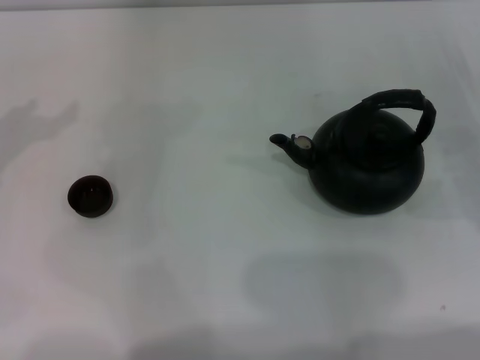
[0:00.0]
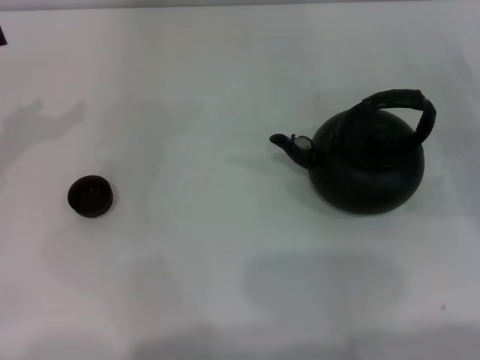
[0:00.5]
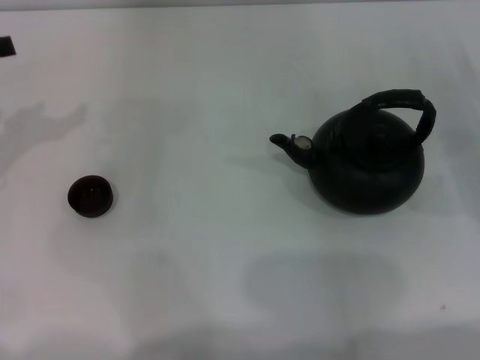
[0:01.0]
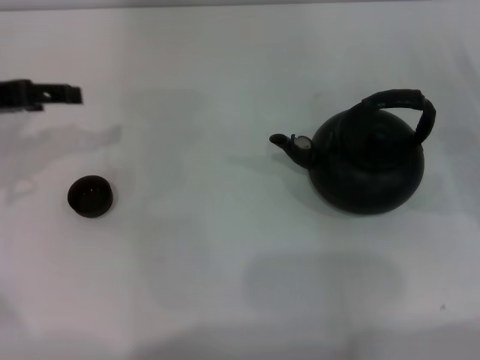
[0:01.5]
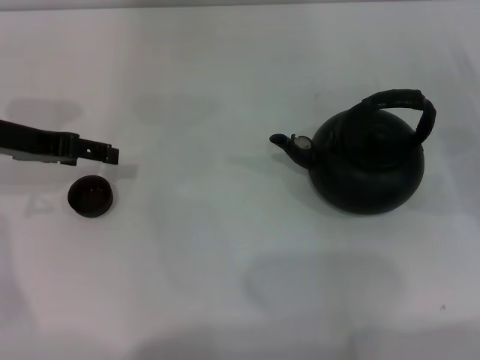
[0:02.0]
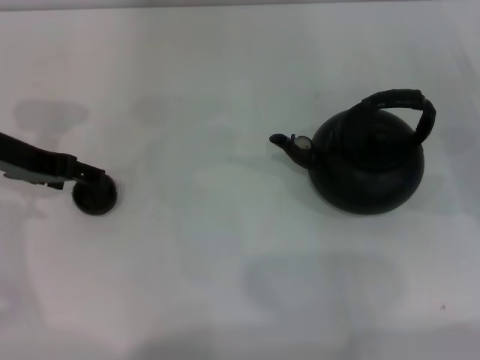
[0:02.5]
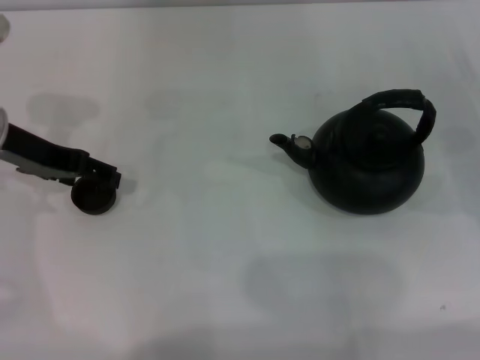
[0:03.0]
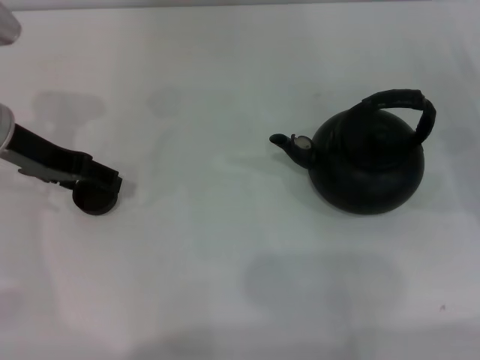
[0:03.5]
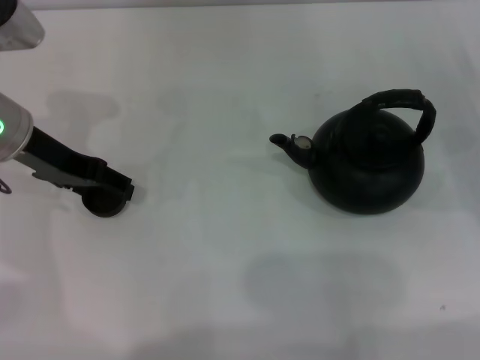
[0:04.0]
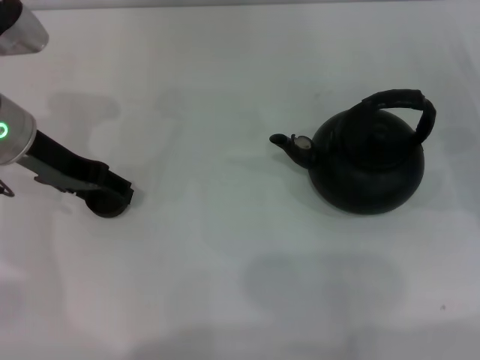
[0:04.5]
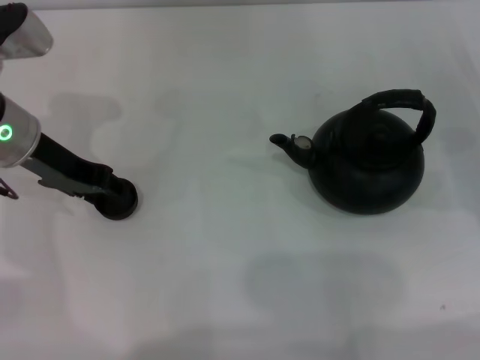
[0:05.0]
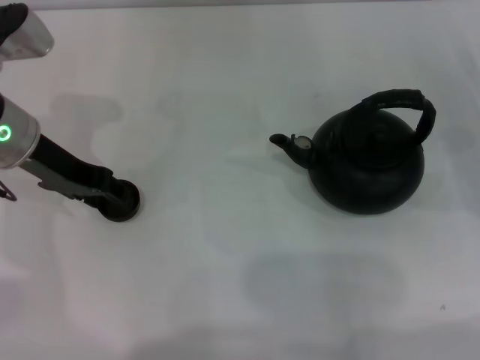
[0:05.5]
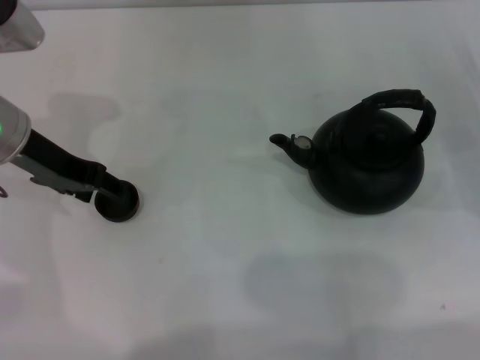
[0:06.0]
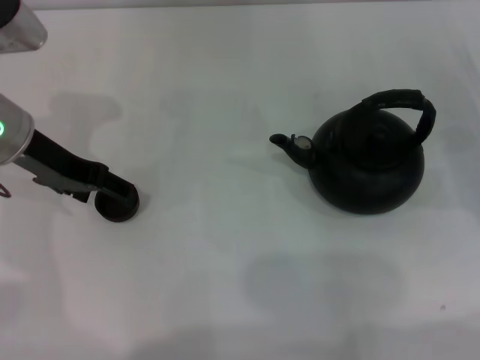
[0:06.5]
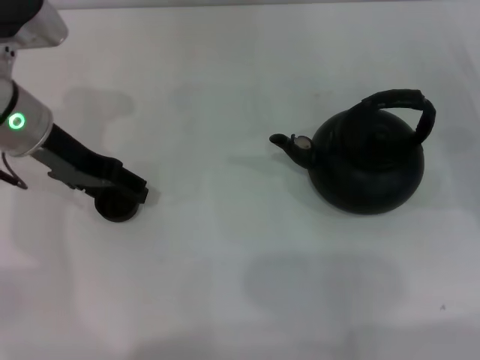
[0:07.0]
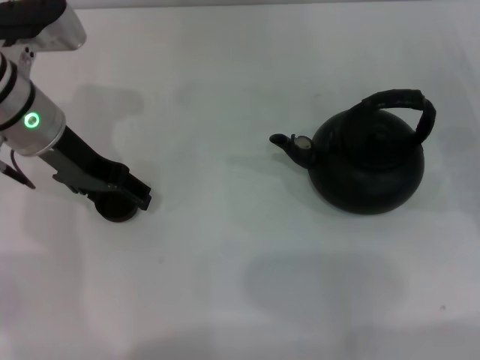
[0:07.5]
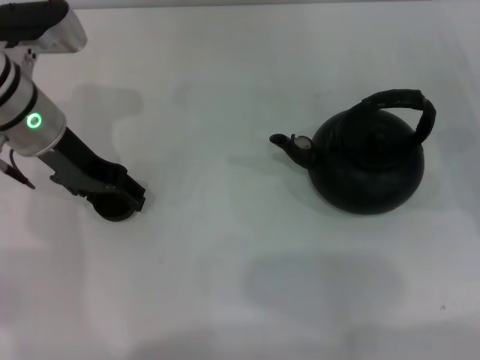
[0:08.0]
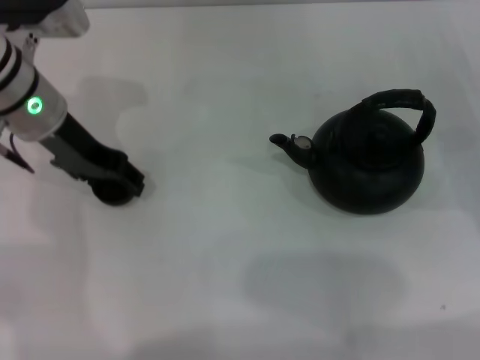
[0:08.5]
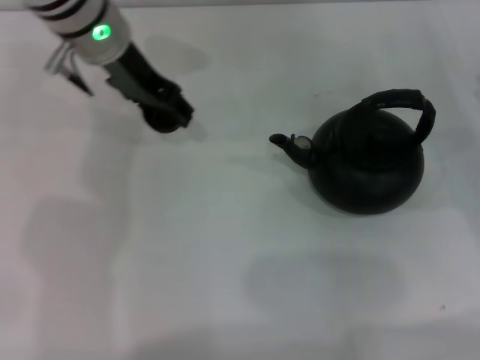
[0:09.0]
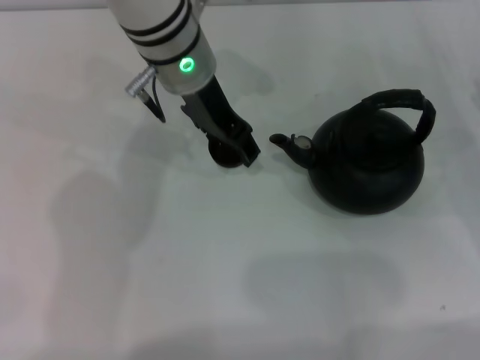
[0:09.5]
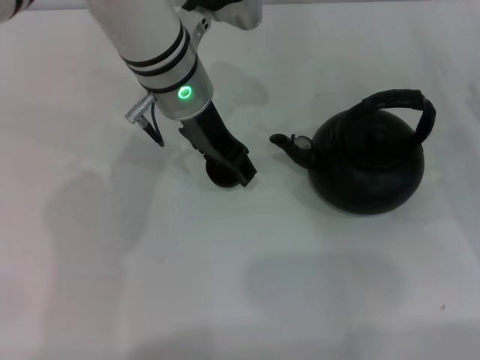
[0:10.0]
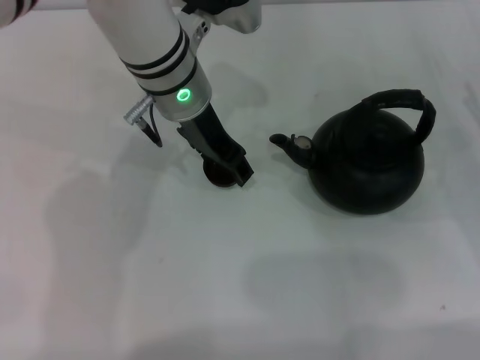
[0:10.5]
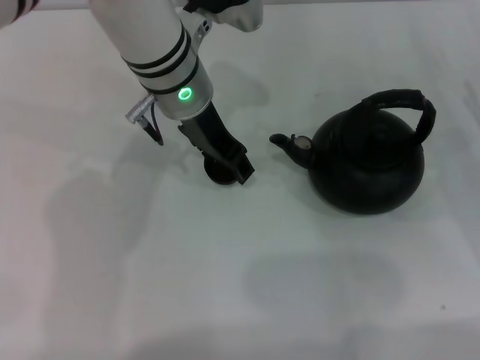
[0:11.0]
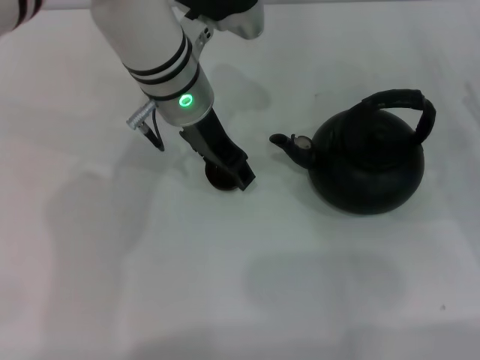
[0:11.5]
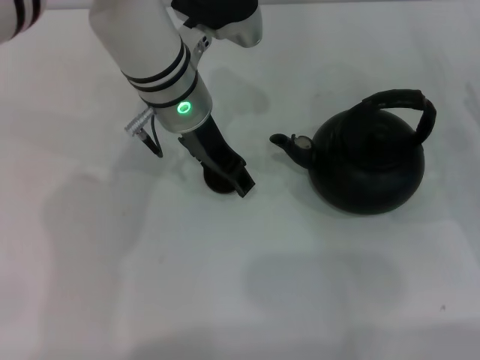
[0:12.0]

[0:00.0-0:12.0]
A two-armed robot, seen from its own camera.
Task of the whole recording: Grasp the handle of the teapot with one hand and pour tea into the teacup.
Step, 0:00.0 to 0:08.5: Pick up the teacup with the left gripper.
0:00.0 to 0:02.0: The left gripper moves to the right and downward, some 10 cm.
0:02.0 to 0:04.0: The grippers move only a little.
0:04.0 to 0:06.0: The left gripper closes up.
0:06.0 to 0:08.0: The left gripper opens up.
0:08.0 to 0:10.0: The left gripper moves to the right, roughly 15 cm, and closes.
0:10.0 to 0:12.0: Both grippers stay about where they are.

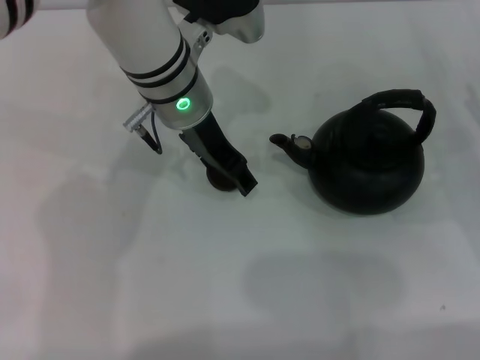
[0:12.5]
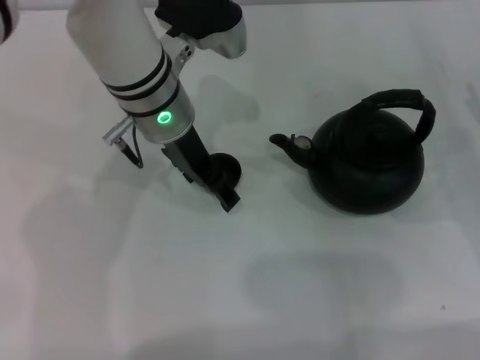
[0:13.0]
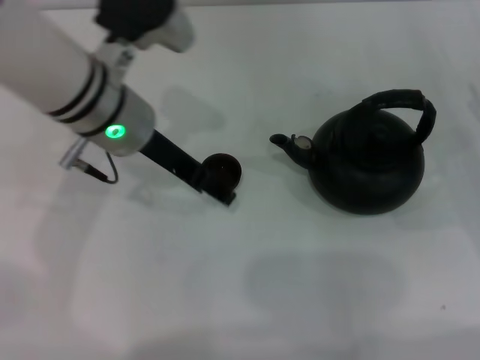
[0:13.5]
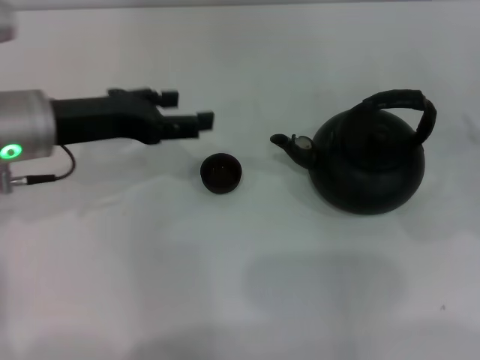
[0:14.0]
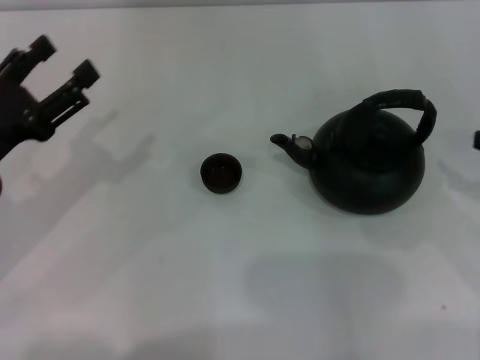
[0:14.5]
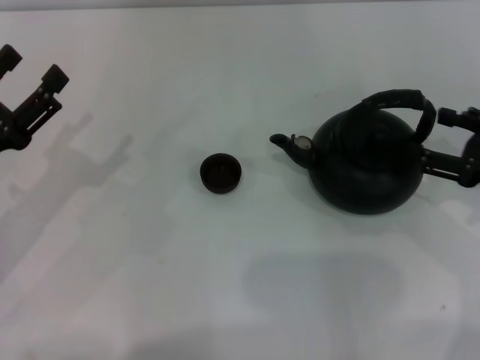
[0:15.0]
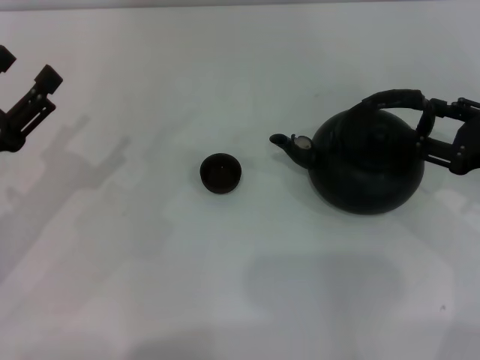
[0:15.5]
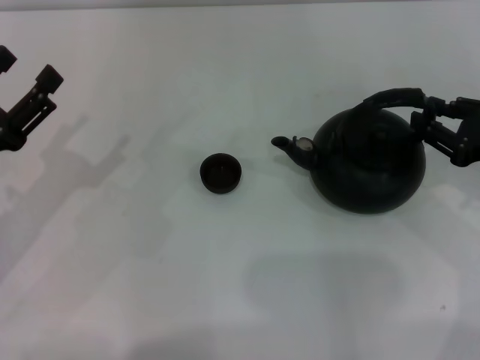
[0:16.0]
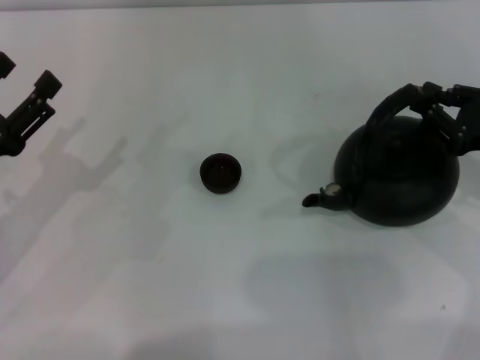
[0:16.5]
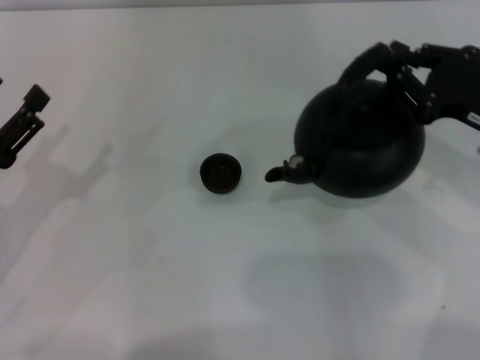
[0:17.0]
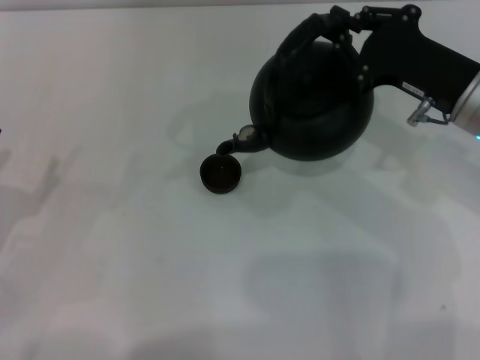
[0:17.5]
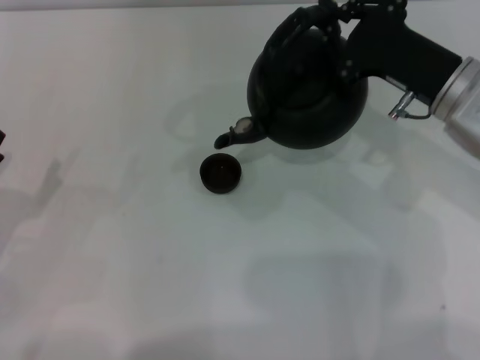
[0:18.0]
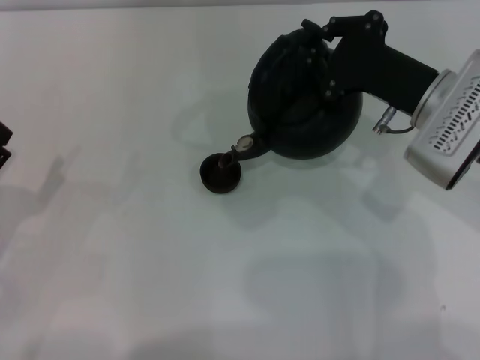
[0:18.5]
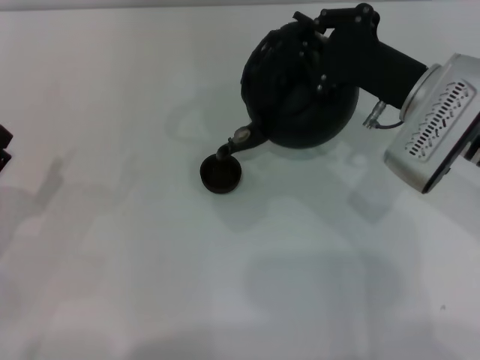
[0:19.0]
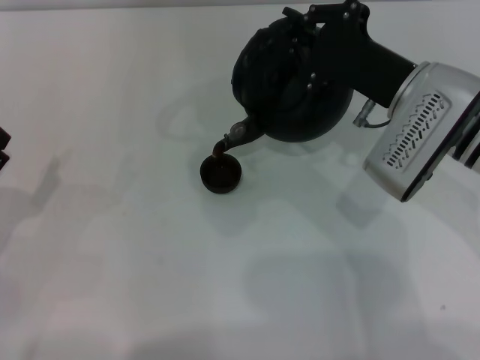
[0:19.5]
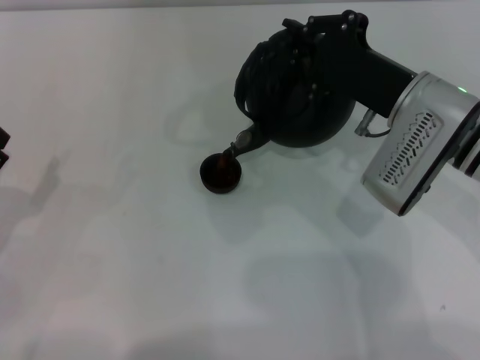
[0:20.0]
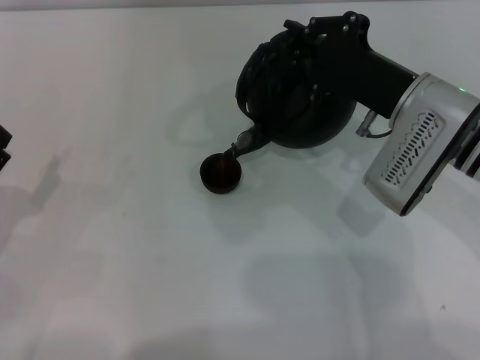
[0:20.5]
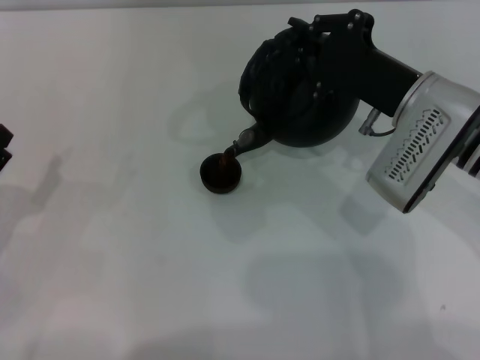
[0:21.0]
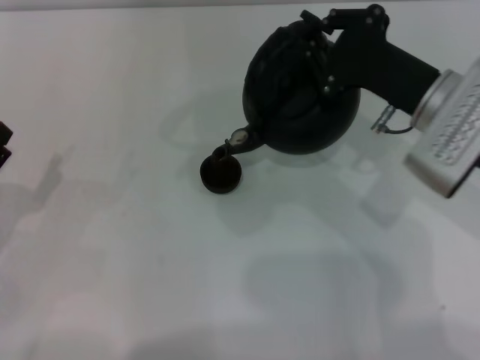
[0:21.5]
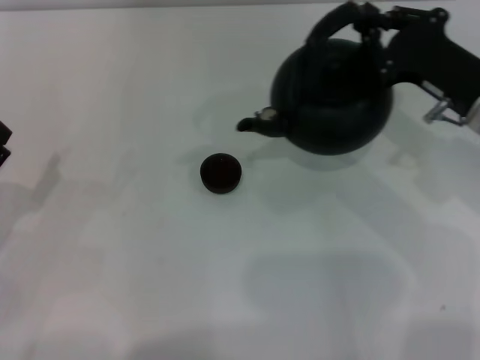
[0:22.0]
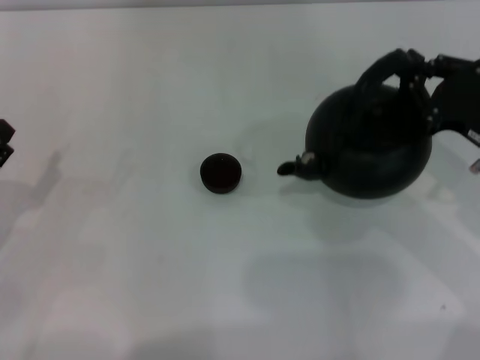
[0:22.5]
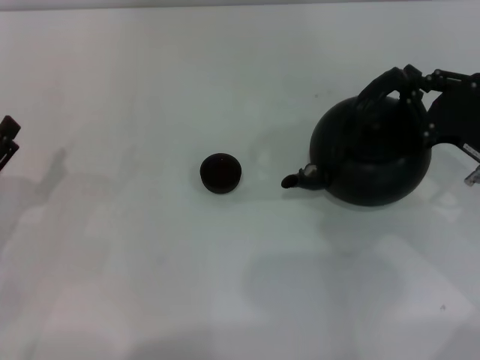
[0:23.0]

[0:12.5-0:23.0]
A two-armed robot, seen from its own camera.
Task of the whole recording: Grasp the handle of the teapot with one hand and pour tea into the teacup.
Step, 0:13.5 to 0:17.0: Pick up the teapot with the right gripper.
Step, 0:17.5 to 0:21.5: Pour tea into the teacup with the right gripper.
0:12.5 to 0:14.5: The right gripper shifts roughly 10 cm upward and backward; the left gripper is displaced to the left and backward by about 25 cm.
0:14.5 to 0:16.5: The right gripper changes place by approximately 5 cm, and closes.
0:16.5 to 0:19.0: The left gripper shifts by about 5 cm, while the right gripper travels to the left and forward by approximately 15 cm.
0:19.0 to 0:21.0: The grippers move only a little.
0:21.0 to 0:23.0: The right gripper moves to the right, some 10 cm.

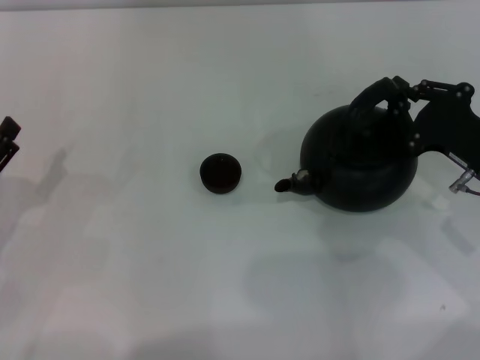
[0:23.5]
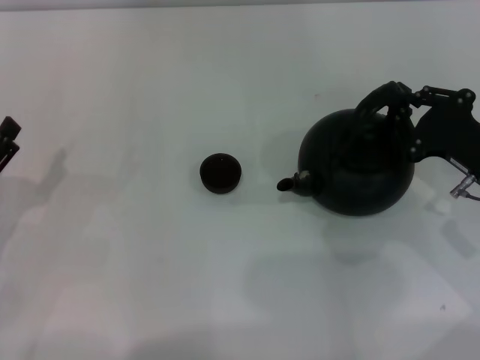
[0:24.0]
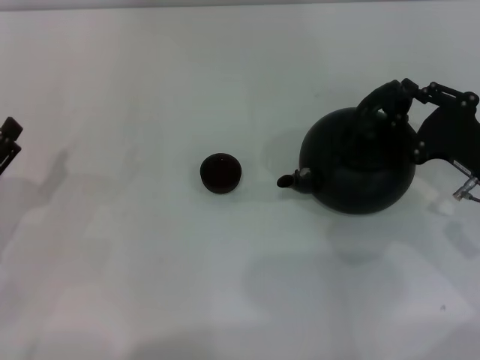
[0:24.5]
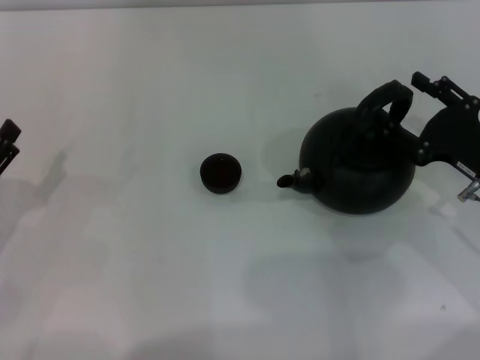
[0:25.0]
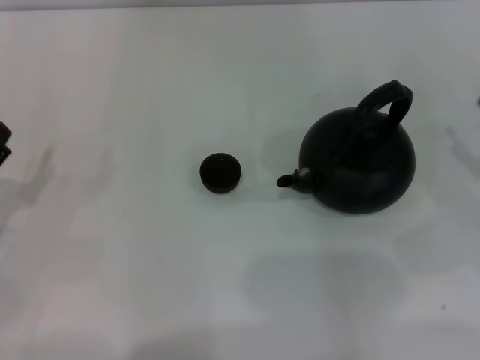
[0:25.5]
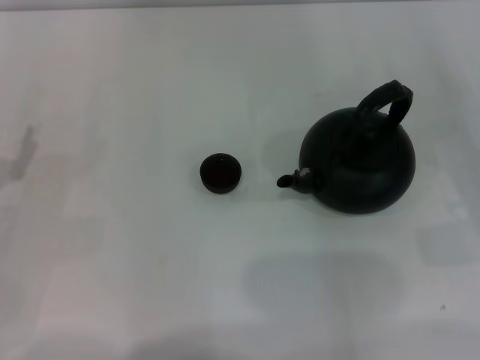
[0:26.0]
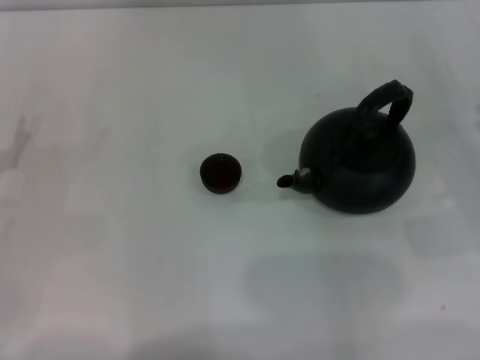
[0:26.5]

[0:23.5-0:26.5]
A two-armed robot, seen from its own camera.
Task of the whole recording: Grasp the handle of the teapot with one hand and pour tea into the teacup.
0:23.5 to 0:25.0: The right gripper opens its fingers.
0:25.0 to 0:26.5: The right gripper moves to the right, approximately 5 cm.
